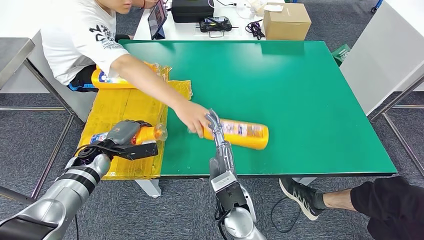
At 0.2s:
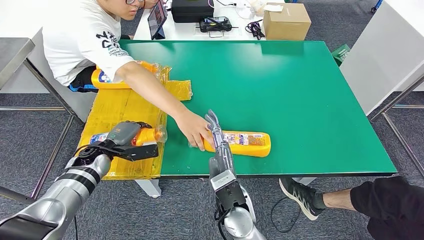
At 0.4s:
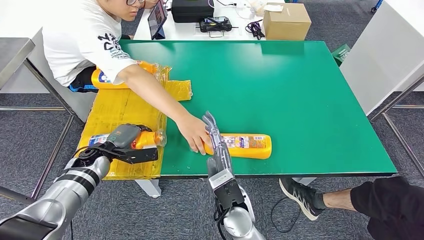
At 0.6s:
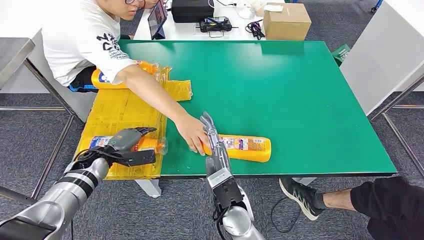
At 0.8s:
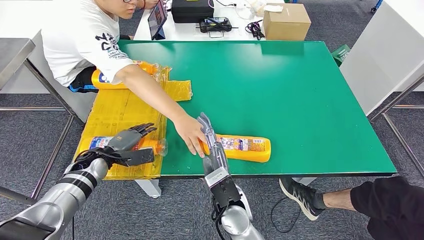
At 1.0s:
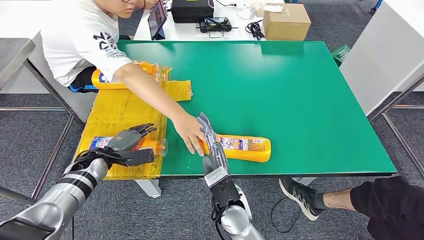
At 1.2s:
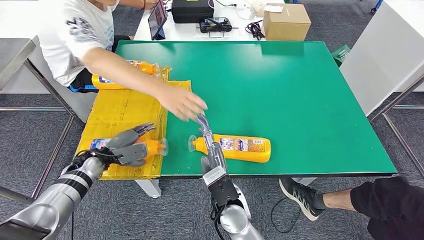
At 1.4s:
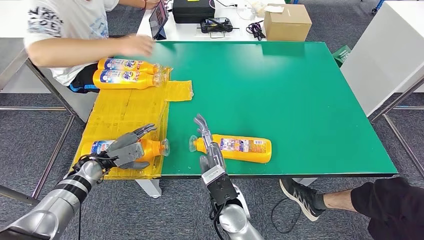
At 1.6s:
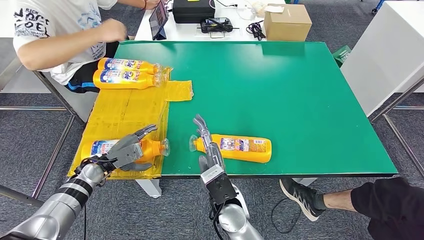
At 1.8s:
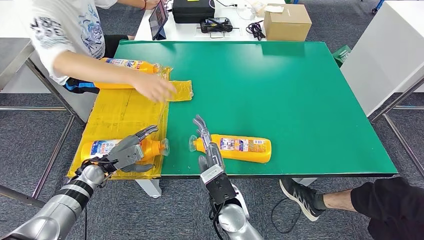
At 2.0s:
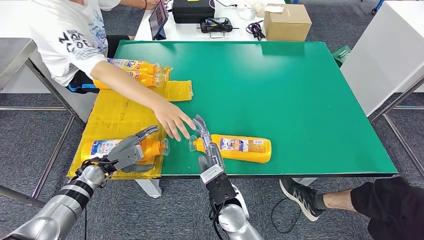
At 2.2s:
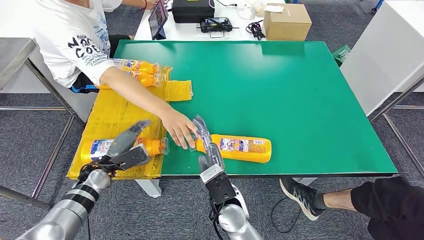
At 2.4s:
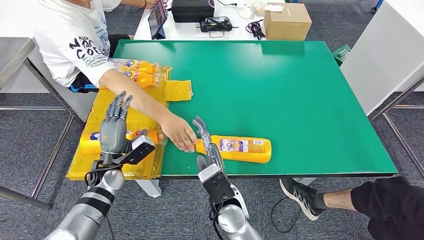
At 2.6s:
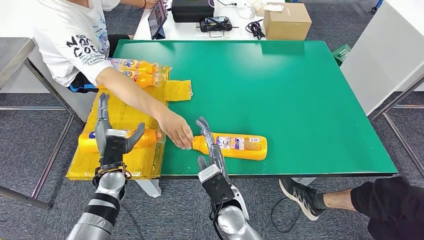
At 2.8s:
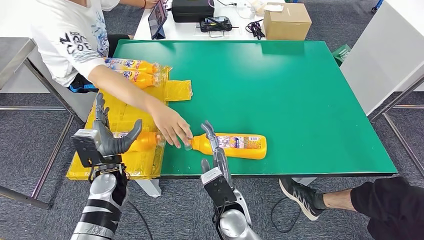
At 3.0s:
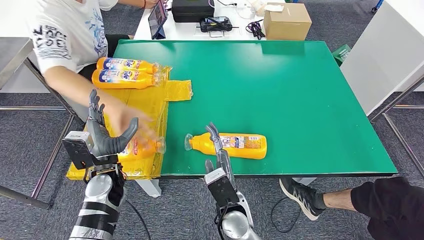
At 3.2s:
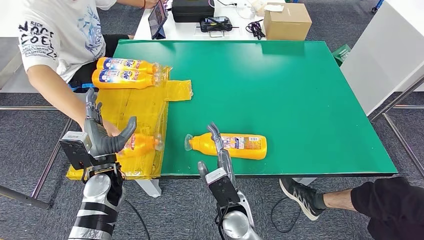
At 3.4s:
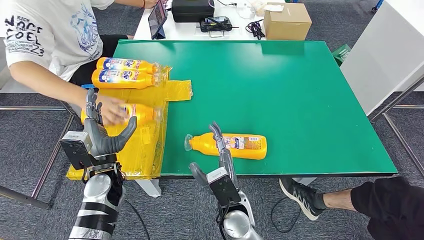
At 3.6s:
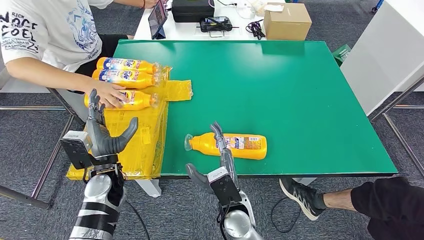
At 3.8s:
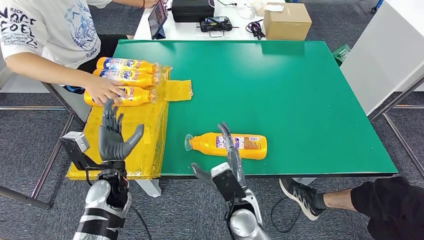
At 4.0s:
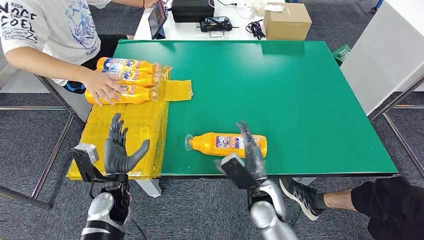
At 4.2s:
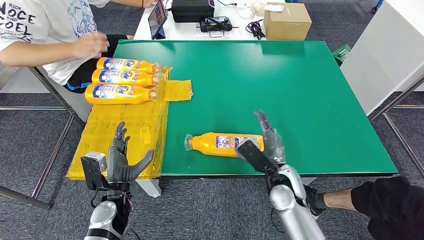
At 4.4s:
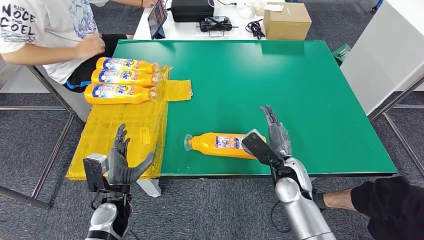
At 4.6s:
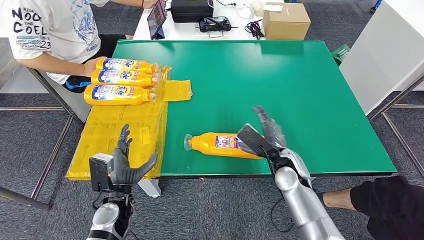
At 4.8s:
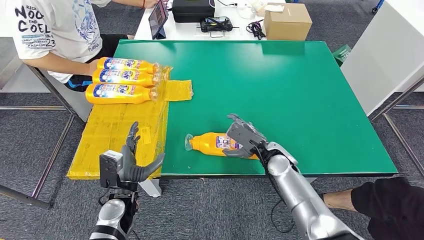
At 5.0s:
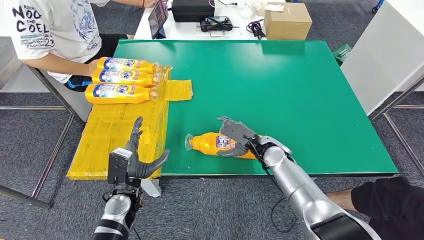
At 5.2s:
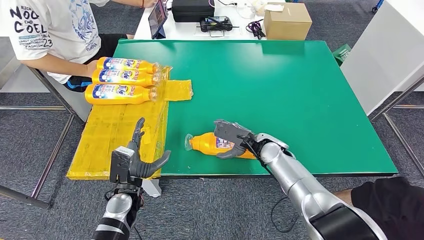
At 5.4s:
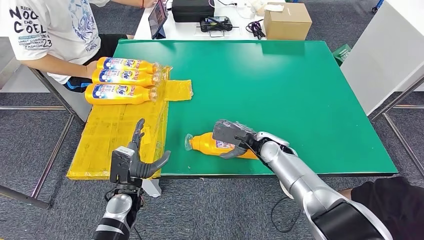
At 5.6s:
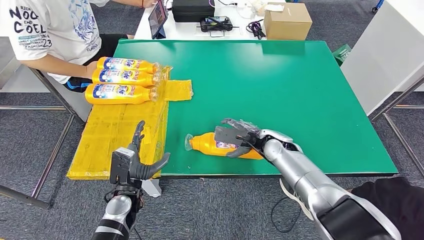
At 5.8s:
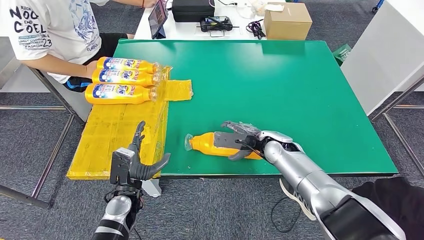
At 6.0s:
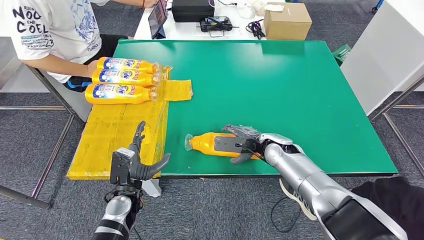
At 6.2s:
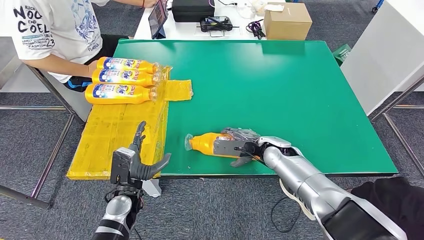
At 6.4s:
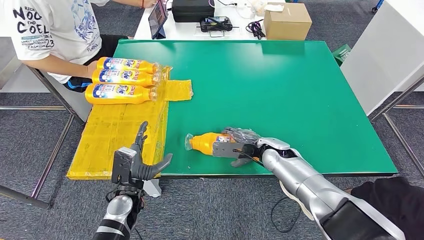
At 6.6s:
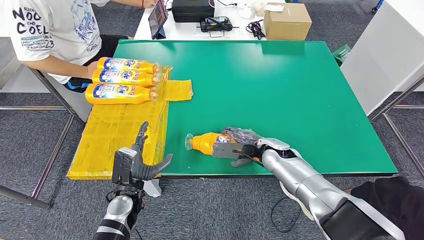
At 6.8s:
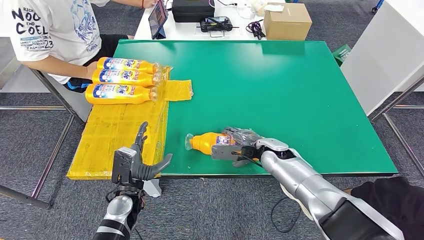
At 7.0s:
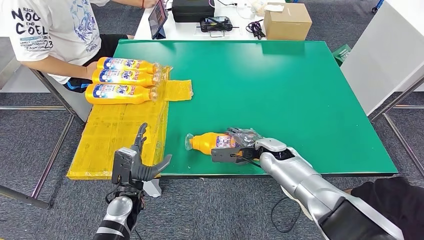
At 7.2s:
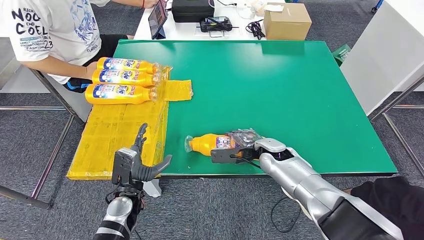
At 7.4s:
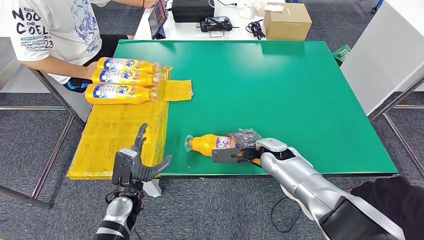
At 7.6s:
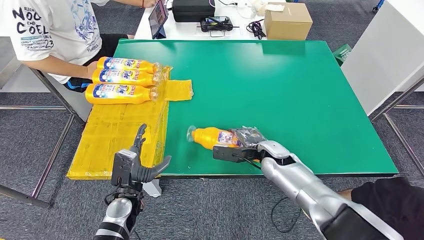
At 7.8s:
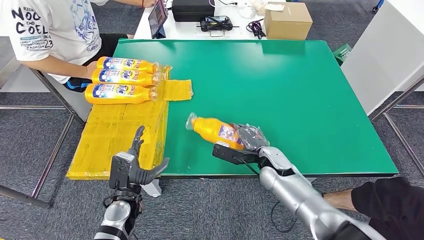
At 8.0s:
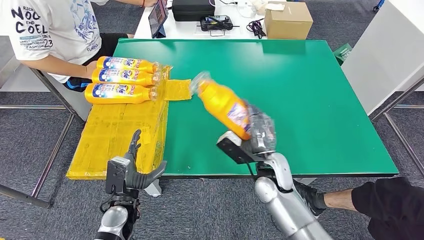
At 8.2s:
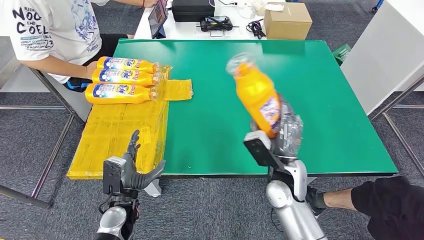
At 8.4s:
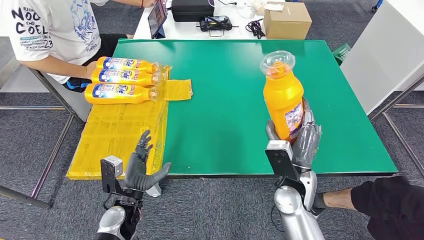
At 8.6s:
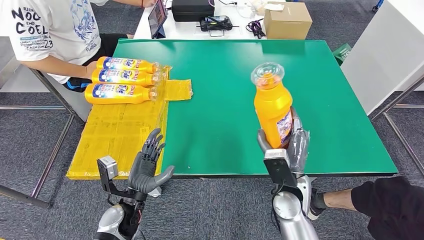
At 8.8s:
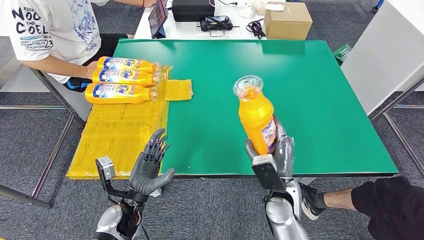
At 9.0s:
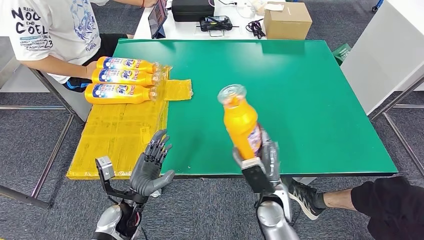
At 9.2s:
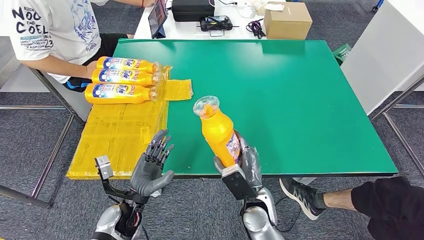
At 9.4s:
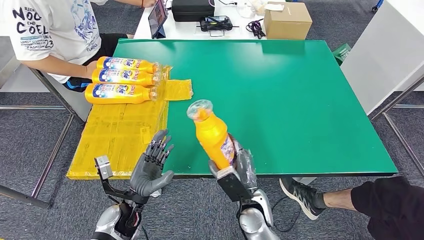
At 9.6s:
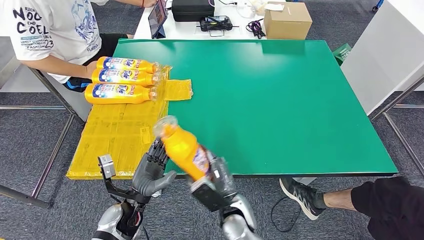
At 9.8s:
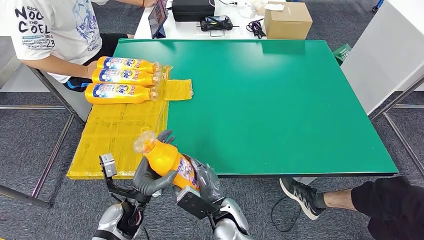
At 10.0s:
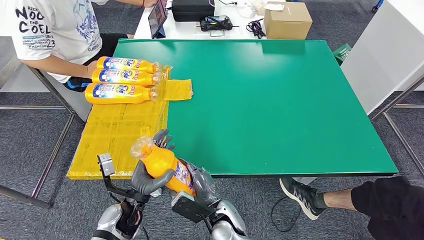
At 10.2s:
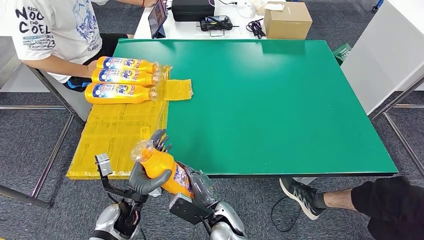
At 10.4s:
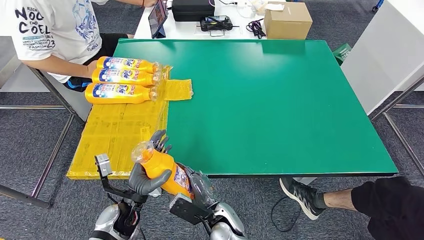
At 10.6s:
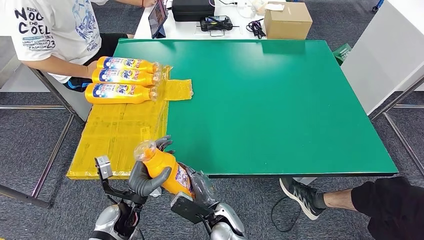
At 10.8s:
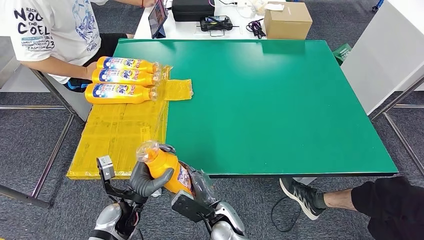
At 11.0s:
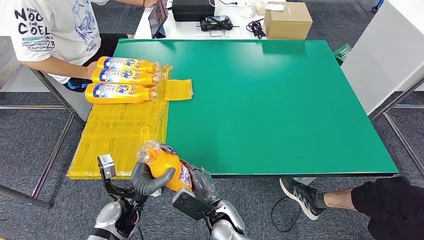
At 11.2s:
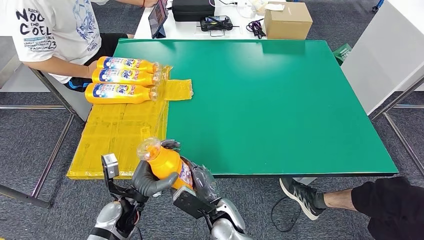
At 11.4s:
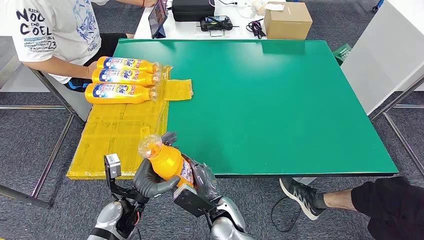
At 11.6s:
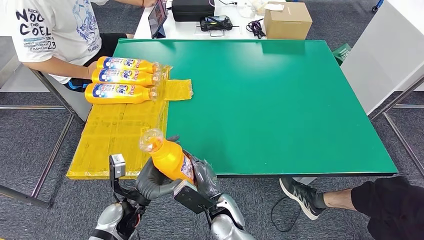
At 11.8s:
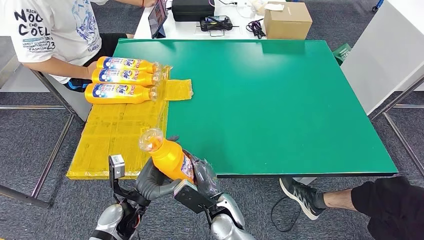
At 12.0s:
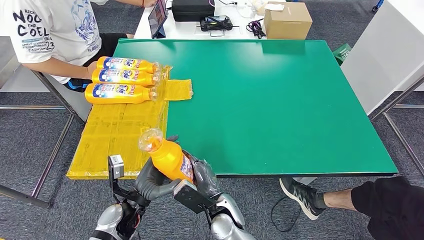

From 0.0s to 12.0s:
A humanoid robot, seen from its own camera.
Step, from 0.0s to 4.0s: Flip the fast-moving consumer goods bottle to the front side.
Step, from 4.2s to 9.6s: Pick up the fast-moving consumer goods bottle from the table.
From 4.4s to 6.0s: The right hand goes approximately 10 cm forward.
From 6.0s to 7.6s: The hands make only small movements.
From 7.6s to 9.0s: The right hand is displaced backward by about 10 cm.
From 9.0s to 10.4s: The right hand heads to the left and downward, covering roughly 15 cm.
From 10.4s to 12.0s: There are only small adjustments of the hands.

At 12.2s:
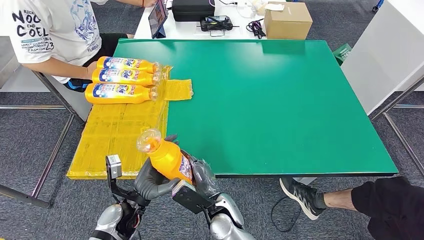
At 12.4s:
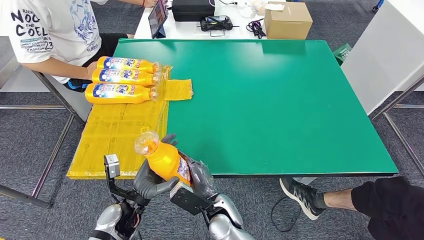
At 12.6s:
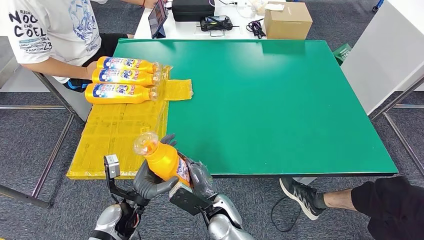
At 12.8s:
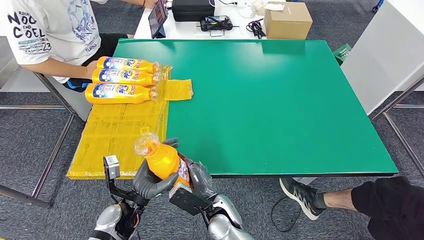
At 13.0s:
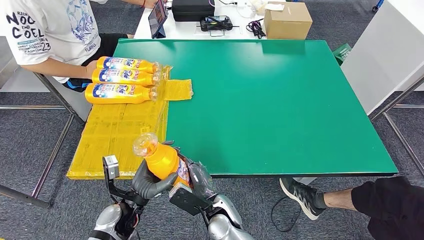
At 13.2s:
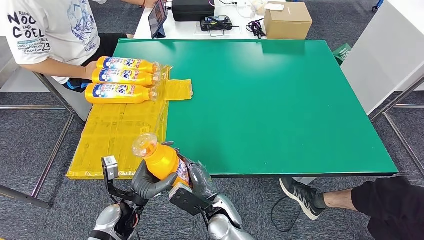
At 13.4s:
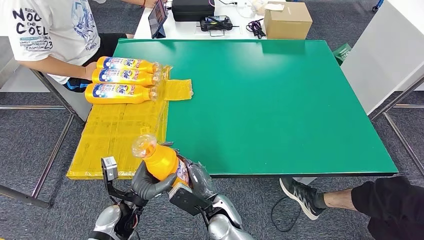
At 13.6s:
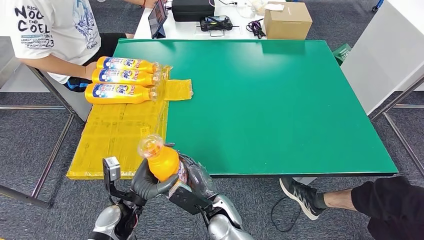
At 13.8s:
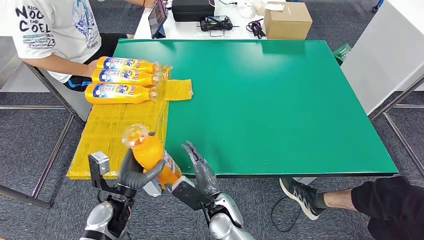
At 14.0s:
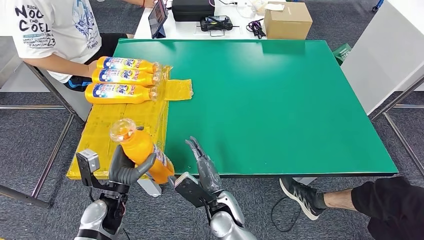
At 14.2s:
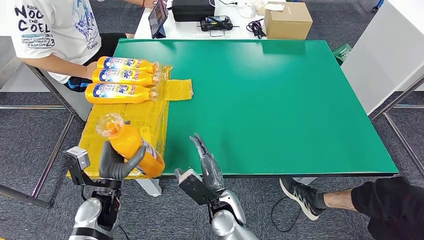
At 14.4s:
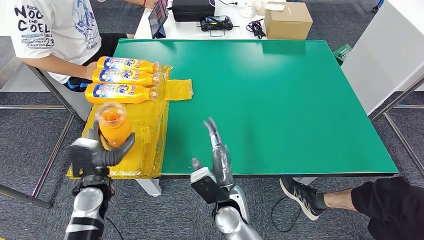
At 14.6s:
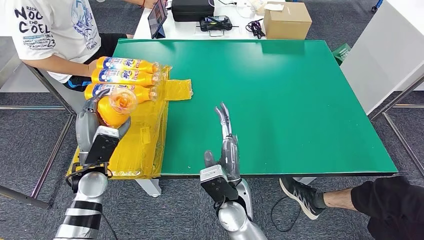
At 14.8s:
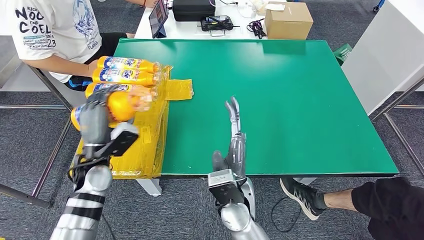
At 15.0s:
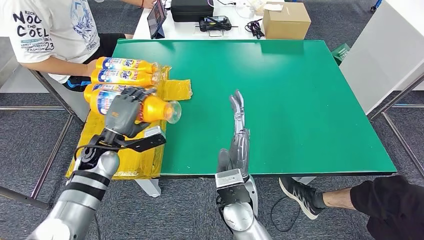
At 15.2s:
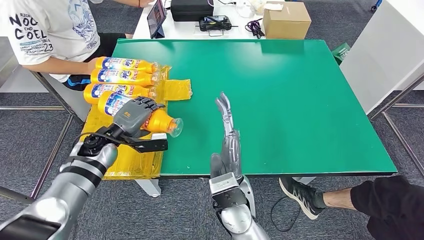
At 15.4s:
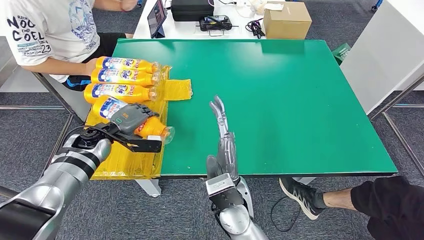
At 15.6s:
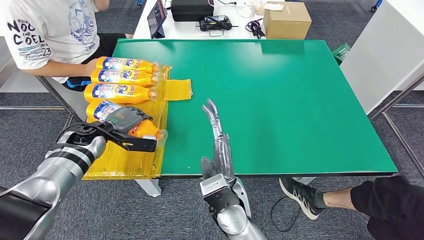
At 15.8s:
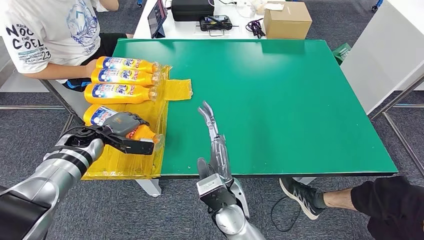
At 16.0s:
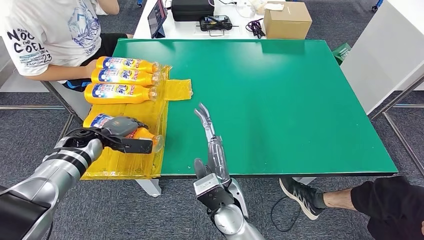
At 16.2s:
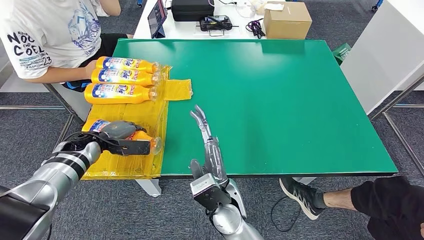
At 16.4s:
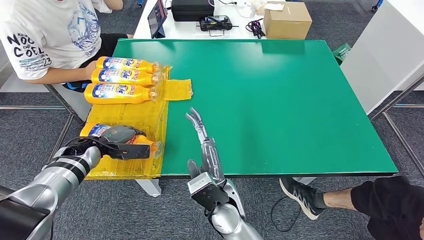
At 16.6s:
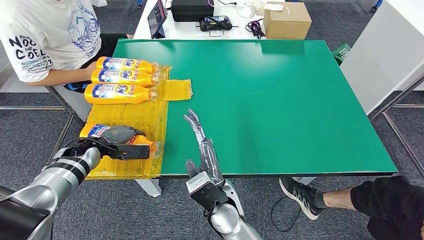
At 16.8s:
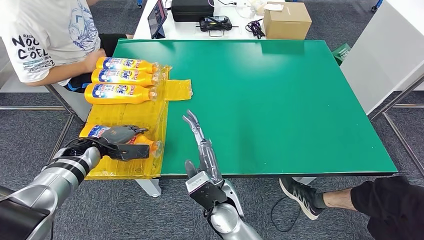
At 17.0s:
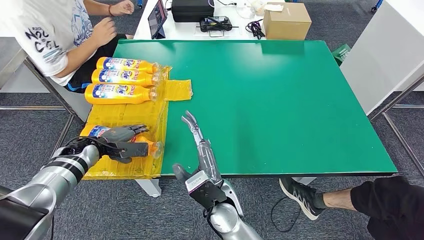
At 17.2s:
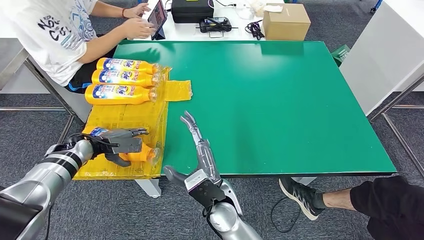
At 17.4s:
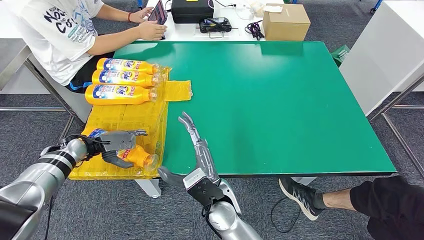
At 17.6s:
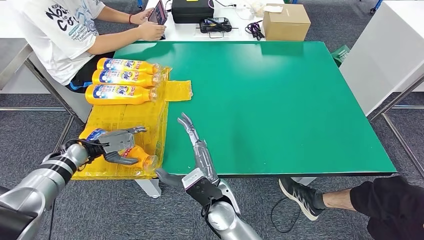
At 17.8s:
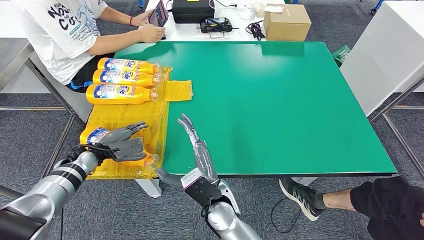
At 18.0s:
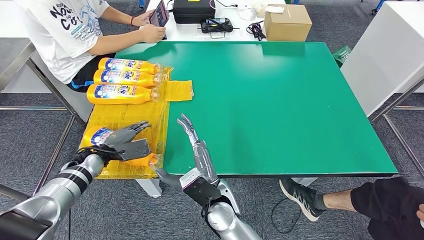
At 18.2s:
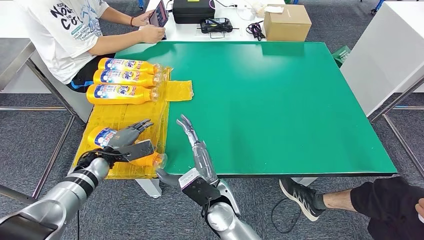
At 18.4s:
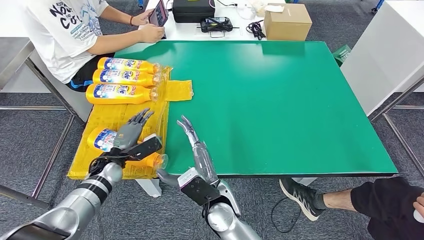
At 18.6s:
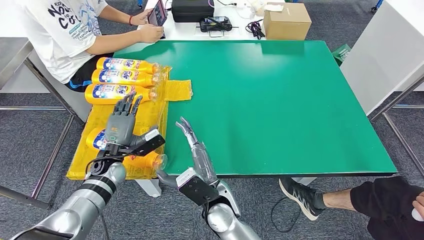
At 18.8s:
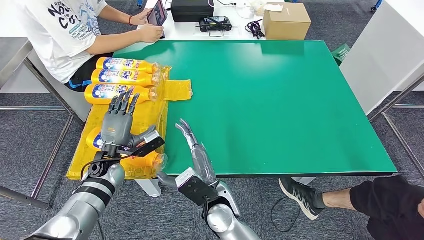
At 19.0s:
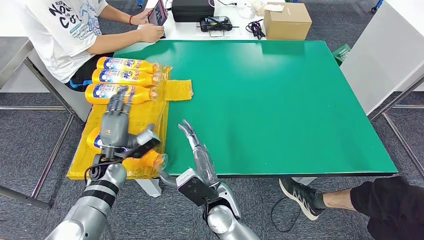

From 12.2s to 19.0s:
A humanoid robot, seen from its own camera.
From 12.2s to 13.6s: There are only small adjustments of the hands.
From 17.6s to 19.0s: The left hand moves to the right, about 15 cm.
